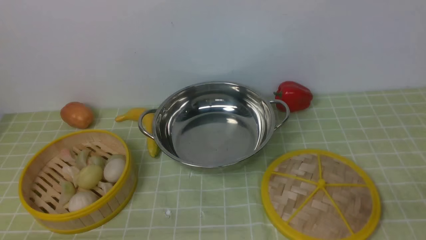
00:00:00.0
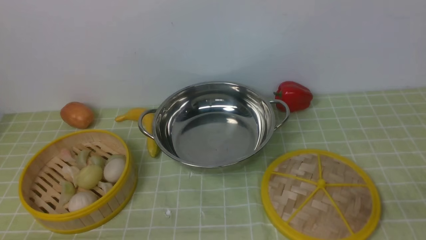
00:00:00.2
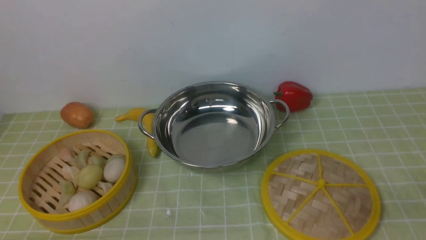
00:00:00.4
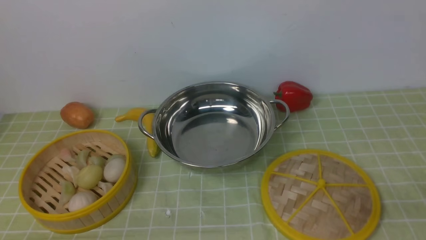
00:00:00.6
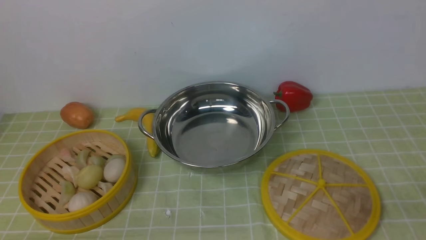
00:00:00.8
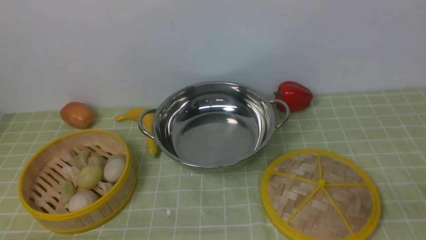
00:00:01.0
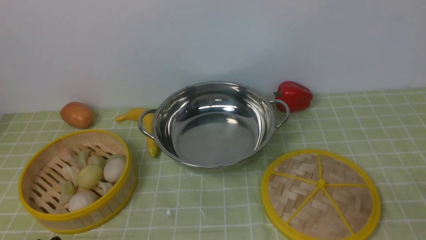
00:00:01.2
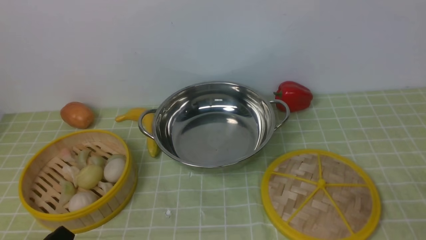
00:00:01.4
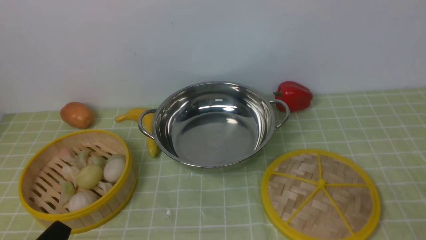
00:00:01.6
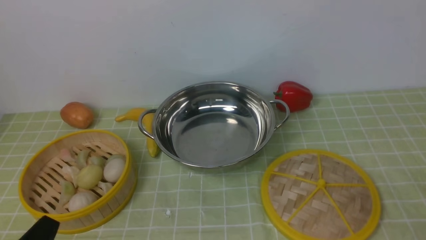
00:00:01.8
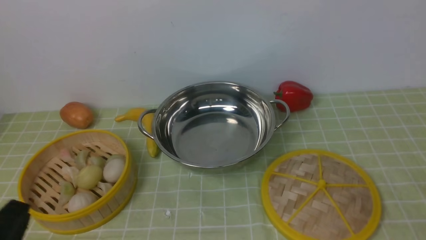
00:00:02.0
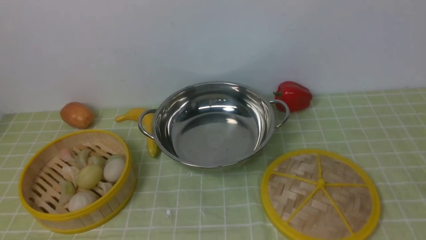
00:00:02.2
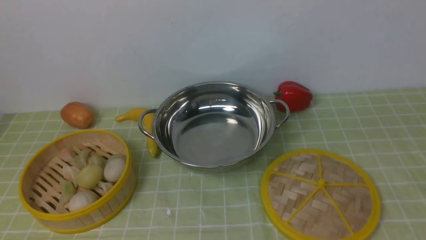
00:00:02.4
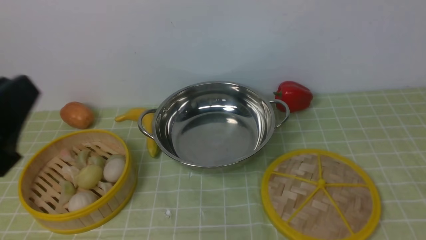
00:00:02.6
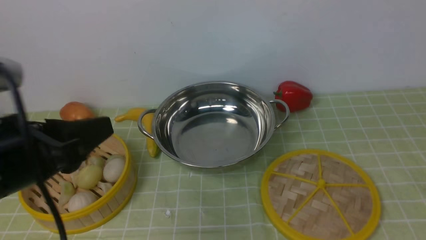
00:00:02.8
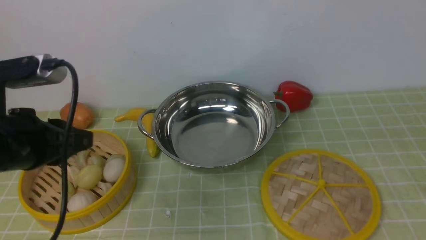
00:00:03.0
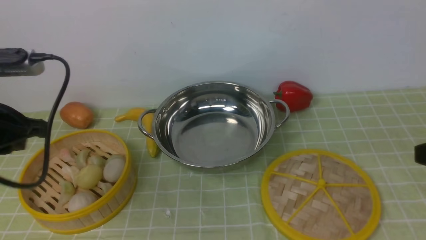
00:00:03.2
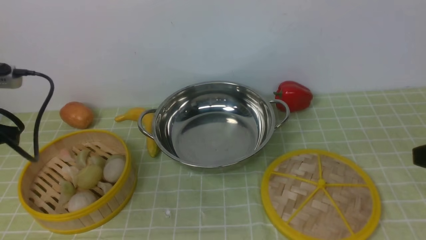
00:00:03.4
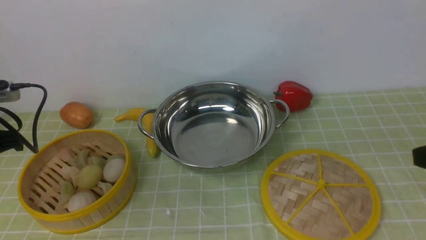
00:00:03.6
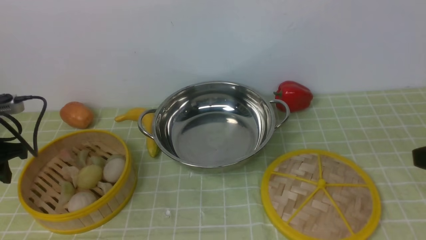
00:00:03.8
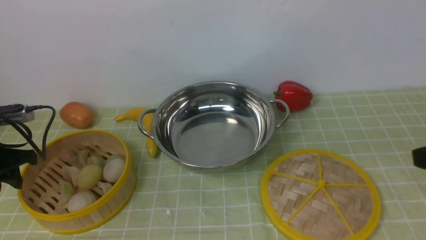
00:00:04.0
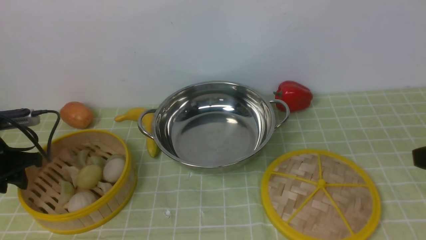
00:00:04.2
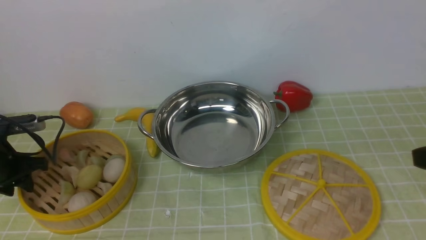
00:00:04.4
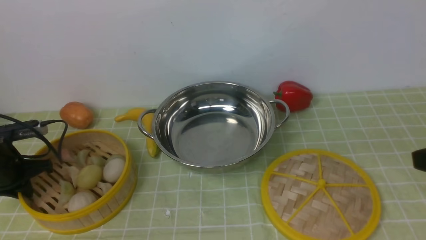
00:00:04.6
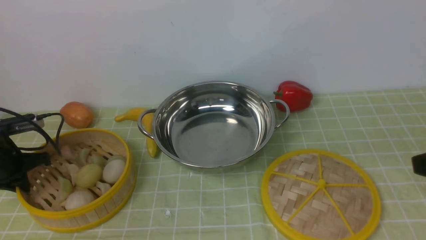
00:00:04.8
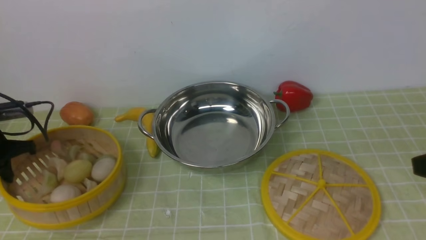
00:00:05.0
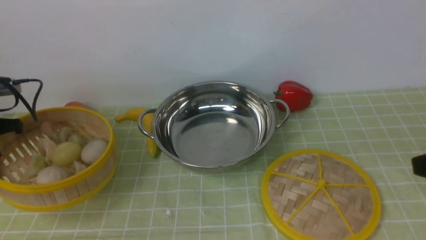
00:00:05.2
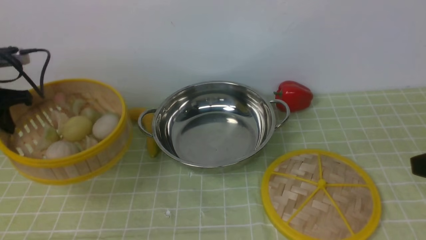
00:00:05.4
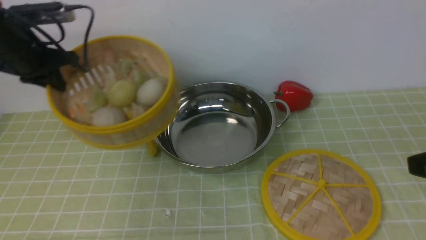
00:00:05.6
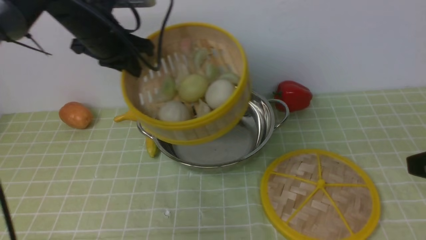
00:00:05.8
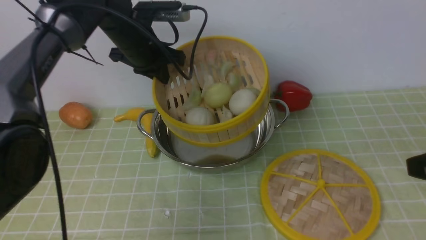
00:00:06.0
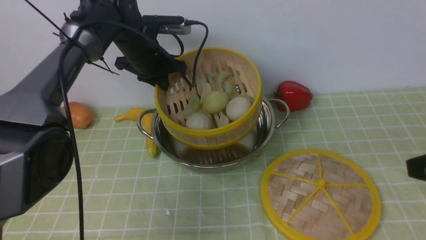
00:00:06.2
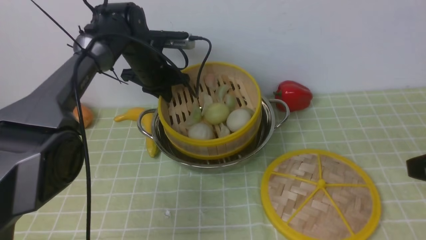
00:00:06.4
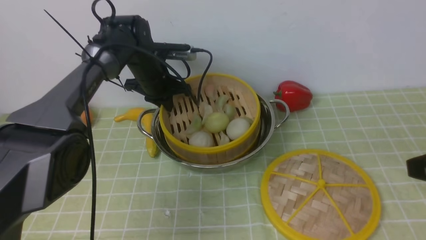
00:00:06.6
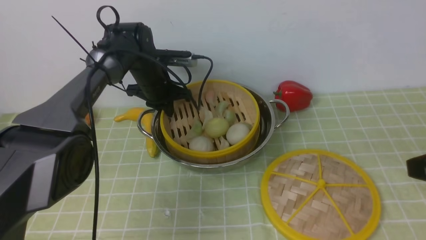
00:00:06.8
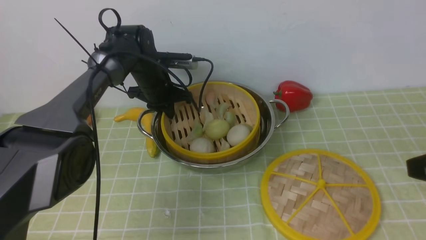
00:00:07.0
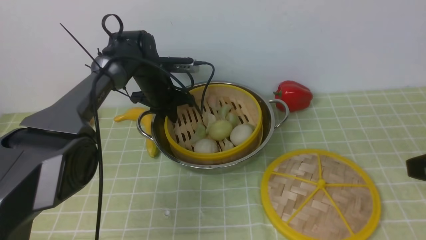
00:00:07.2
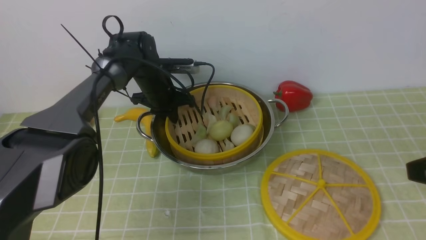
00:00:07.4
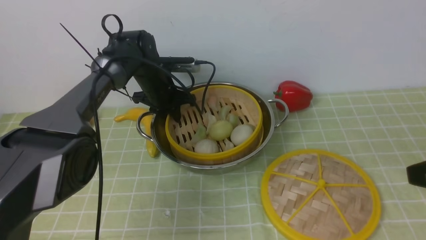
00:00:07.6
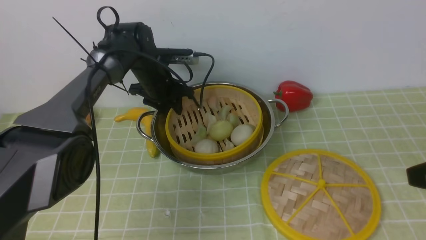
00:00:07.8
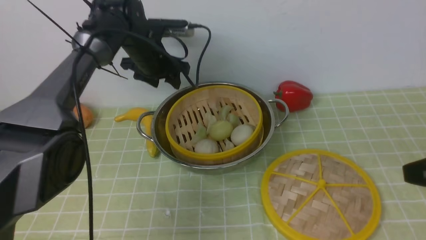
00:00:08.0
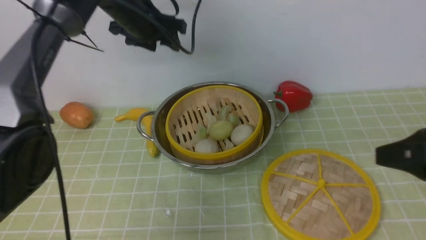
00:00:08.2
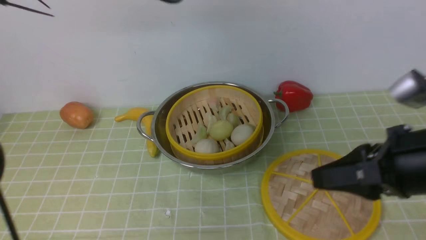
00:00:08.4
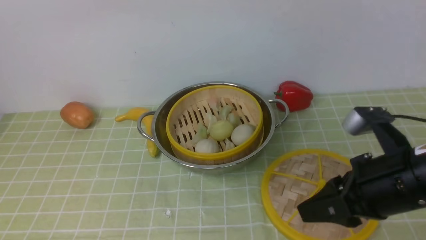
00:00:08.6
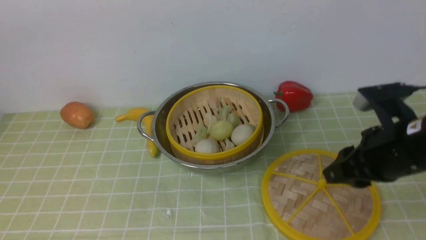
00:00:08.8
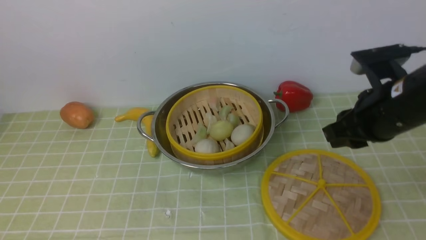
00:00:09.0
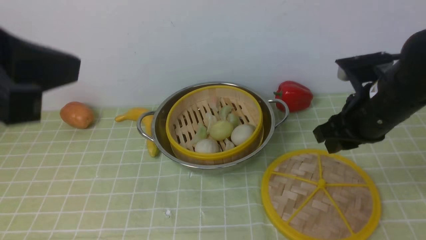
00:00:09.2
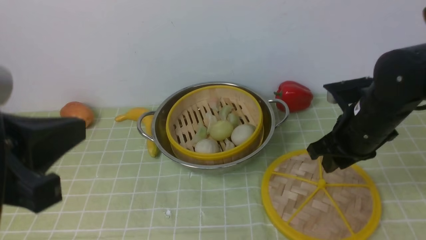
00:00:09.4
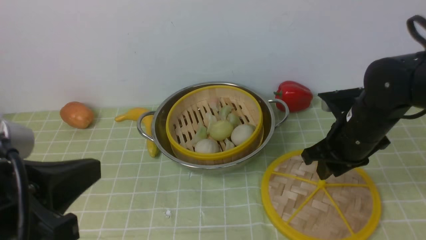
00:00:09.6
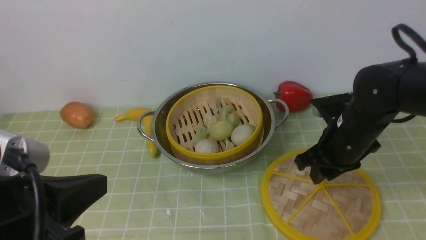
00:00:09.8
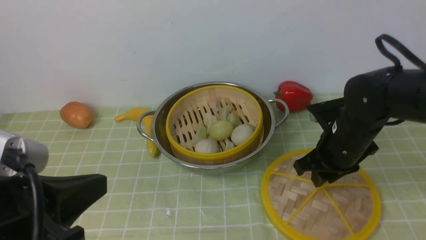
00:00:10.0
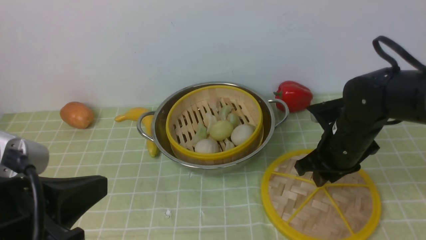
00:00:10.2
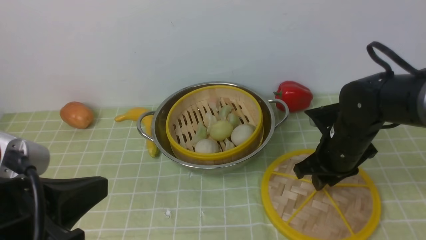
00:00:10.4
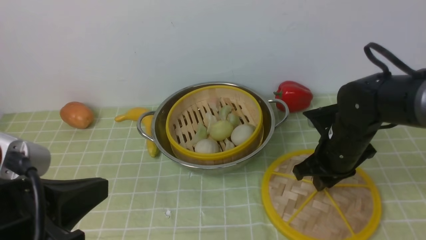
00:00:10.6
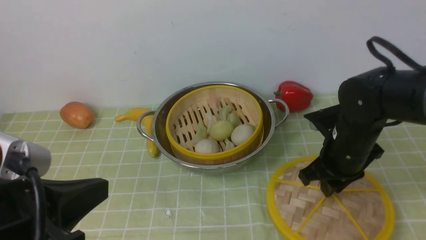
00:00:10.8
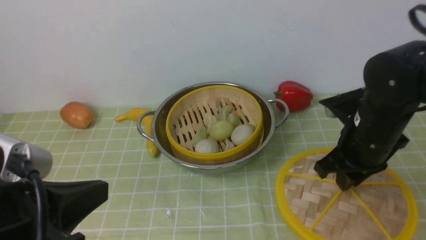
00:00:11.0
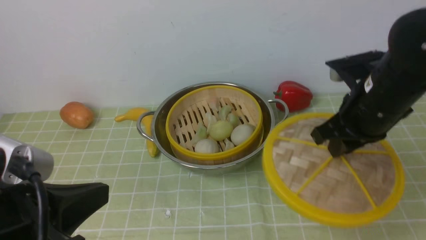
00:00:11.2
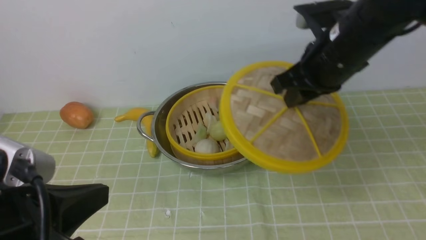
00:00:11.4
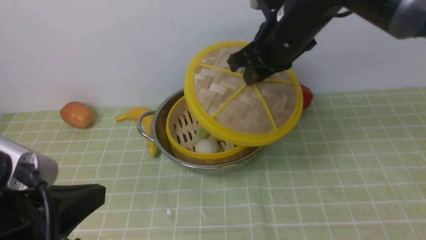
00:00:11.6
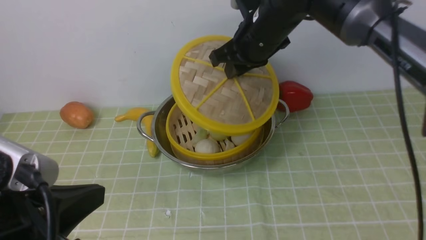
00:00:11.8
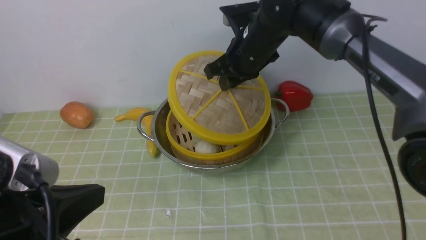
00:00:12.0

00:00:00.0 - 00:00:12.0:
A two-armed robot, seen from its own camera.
Task of the whole recording: place the steamer in the pot on the green tablecloth, and put the lid on the steamer.
Step, 00:00:00.0 - 00:00:05.2: use the left arm to lift the steamer closest to it.
Step, 00:00:05.6 - 00:00:08.4: use the left arm to put the steamer into the iron steamer pot in the middle.
Step, 00:00:08.6 - 00:00:11.2: use the right arm to lift the lid of the steamer.
00:00:01.6 - 00:00:03.0: The left gripper is displaced forward and upward by about 20 cm.
00:00:03.0 - 00:00:04.4: The left gripper is displaced downward, to the left and forward by about 25 cm.
00:00:04.4 - 00:00:06.0: The left gripper goes some 30 cm to the right, forward and upward, and closes its fingers.
00:00:06.0 - 00:00:07.6: The left gripper goes roughly 10 cm downward, and opens.
00:00:07.6 - 00:00:09.0: The right gripper is displaced forward and to the left by some 15 cm. Meanwhile the left gripper travels upward and backward by roughly 50 cm, and closes.
00:00:09.0 - 00:00:10.4: The right gripper heads downward, covering some 10 cm; the left gripper is displaced downward and backward by approximately 20 cm.
00:00:10.4 - 00:00:12.0: The right gripper shifts some 20 cm to the left, upward and forward.

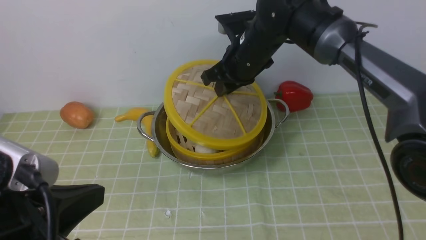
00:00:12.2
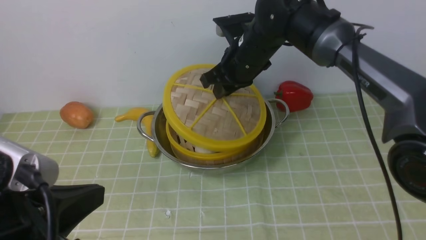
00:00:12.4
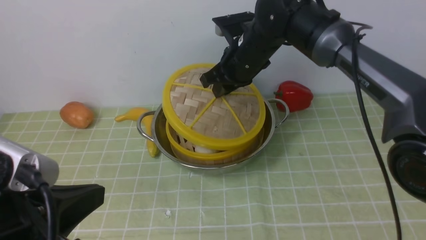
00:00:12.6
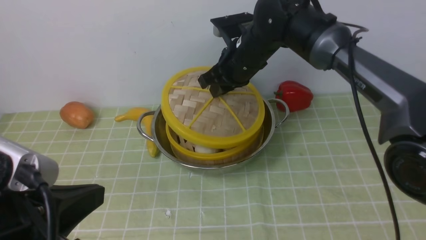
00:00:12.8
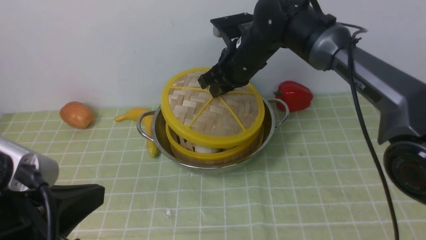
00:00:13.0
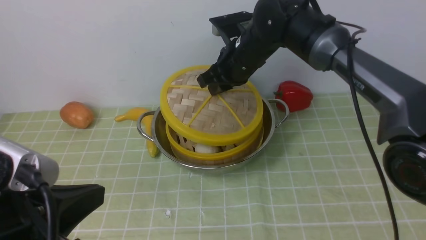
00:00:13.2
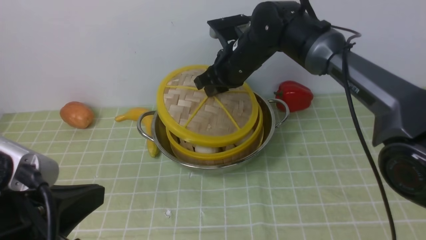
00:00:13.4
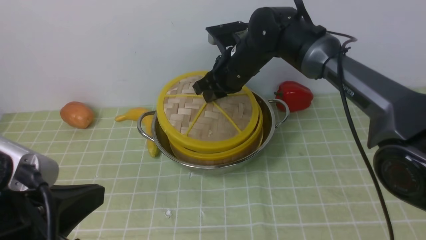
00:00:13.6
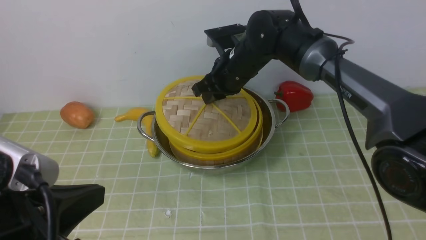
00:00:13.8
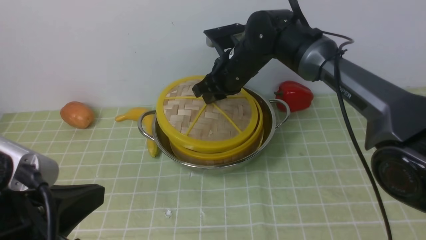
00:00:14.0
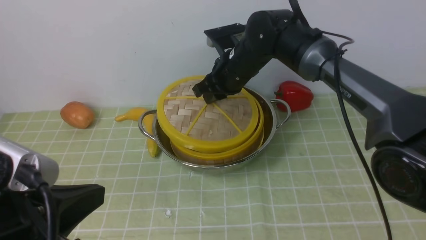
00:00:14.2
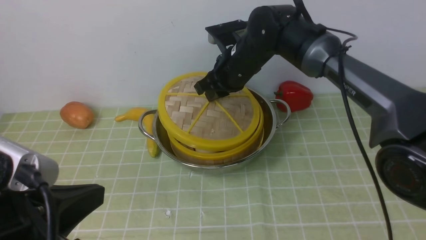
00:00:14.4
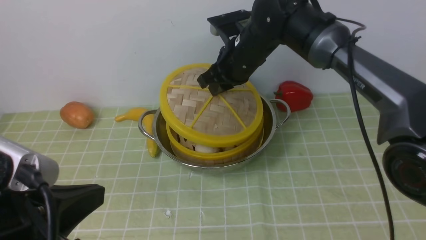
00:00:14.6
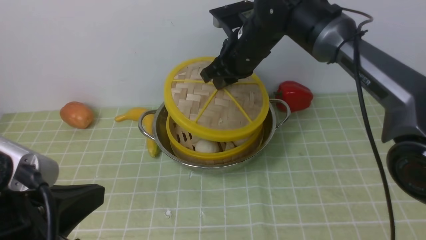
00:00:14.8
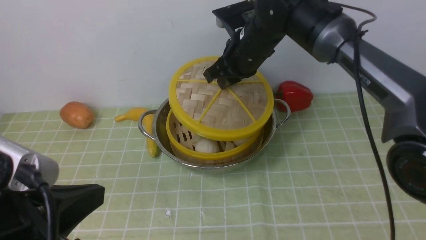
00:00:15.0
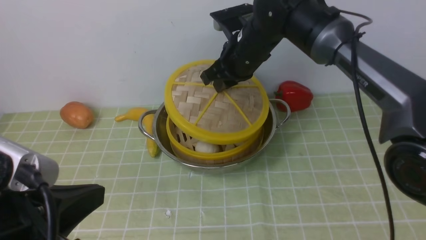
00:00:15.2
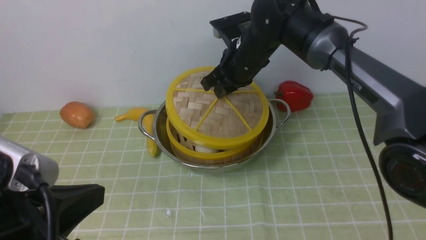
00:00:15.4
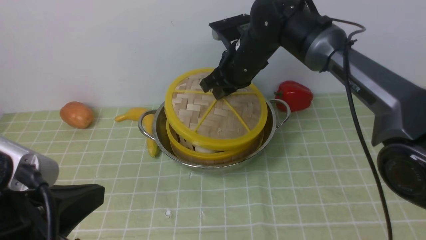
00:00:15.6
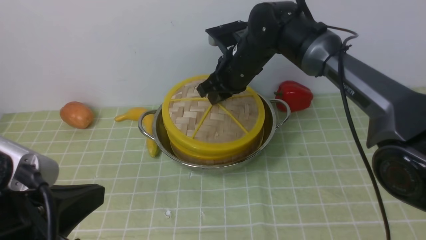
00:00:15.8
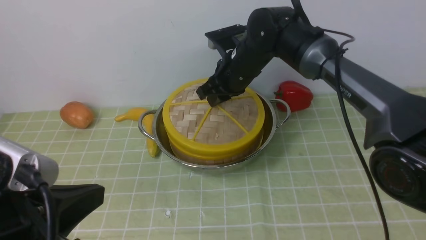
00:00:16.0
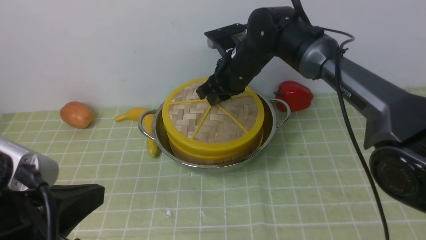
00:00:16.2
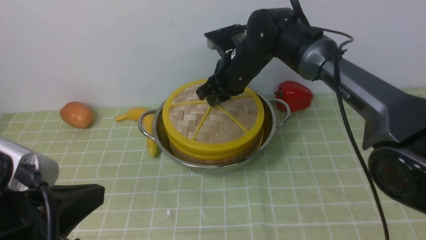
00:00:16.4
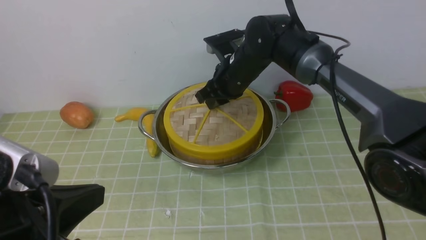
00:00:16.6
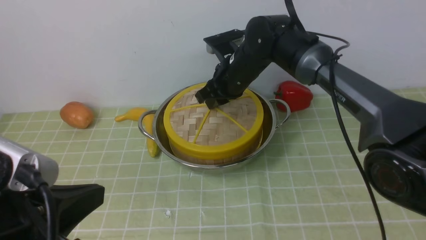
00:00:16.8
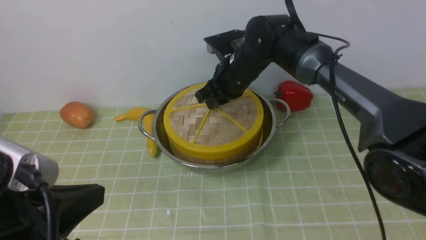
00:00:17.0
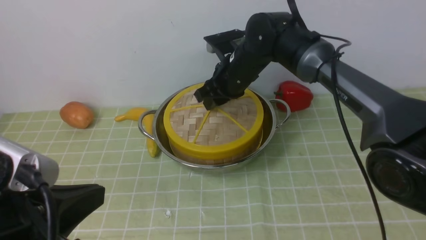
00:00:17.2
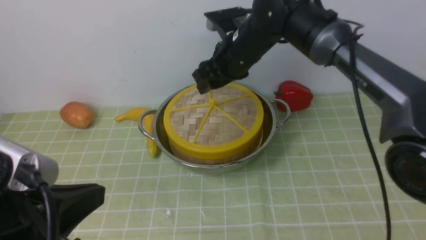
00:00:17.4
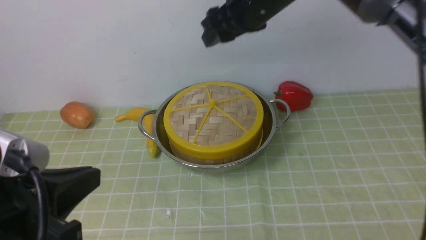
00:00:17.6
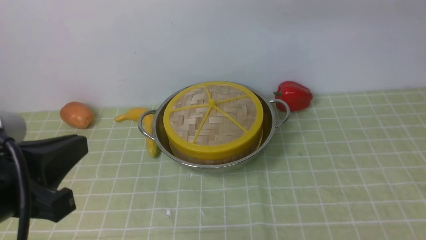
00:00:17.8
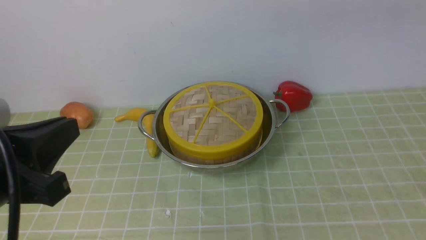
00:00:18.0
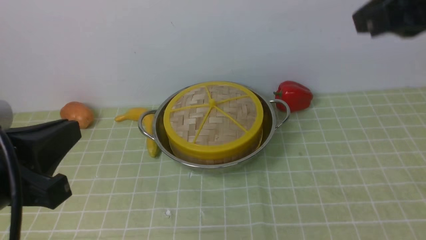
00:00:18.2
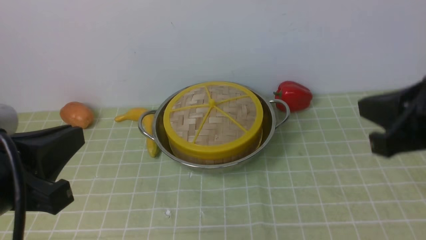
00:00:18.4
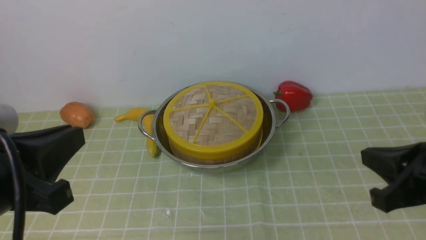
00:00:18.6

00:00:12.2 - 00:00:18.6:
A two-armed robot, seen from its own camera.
Task of the whole recording: place the steamer in the pot on the green tablecloth, and put the lid on the steamer.
Step, 00:00:12.2 - 00:00:17.8: use the right arm to place the steamer lid on the steamer.
00:00:12.2 - 00:00:17.0: The grippers make only small movements.
00:00:17.0 - 00:00:18.6: The right gripper is displaced backward and to the right by some 35 cm, and closes up.
